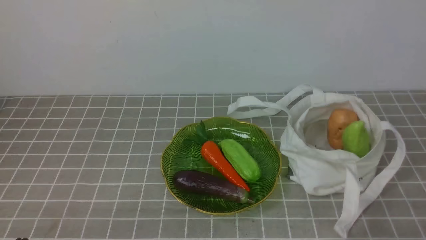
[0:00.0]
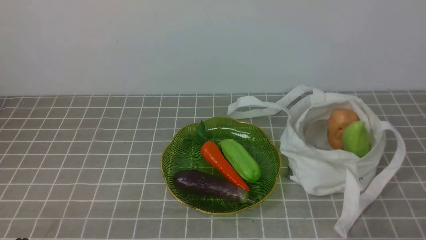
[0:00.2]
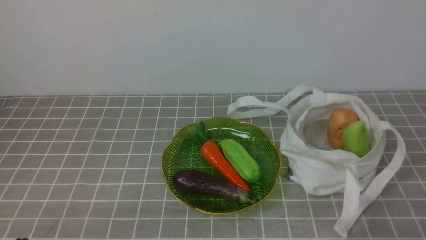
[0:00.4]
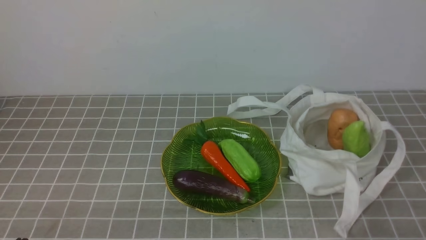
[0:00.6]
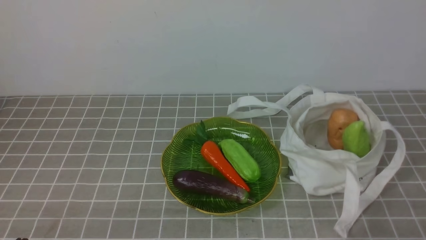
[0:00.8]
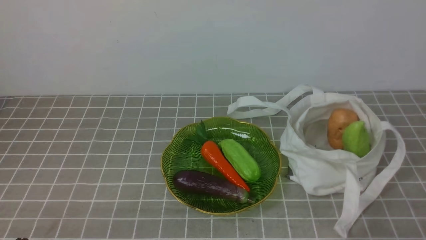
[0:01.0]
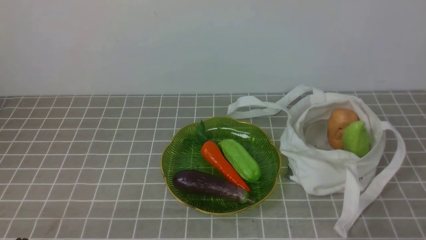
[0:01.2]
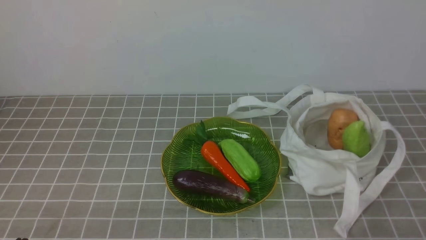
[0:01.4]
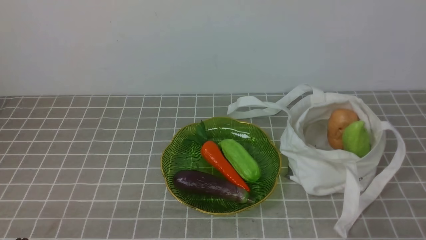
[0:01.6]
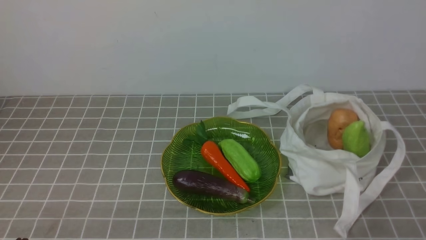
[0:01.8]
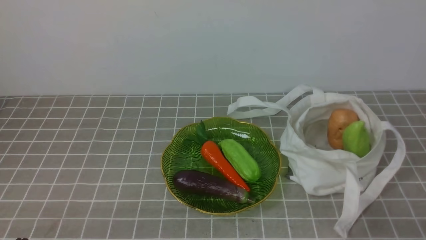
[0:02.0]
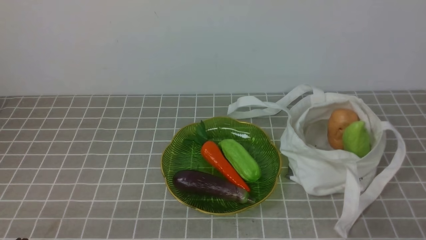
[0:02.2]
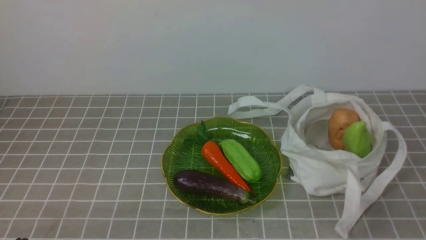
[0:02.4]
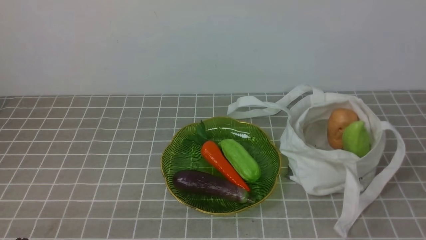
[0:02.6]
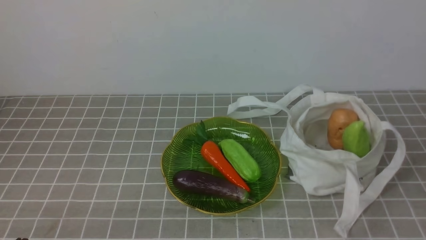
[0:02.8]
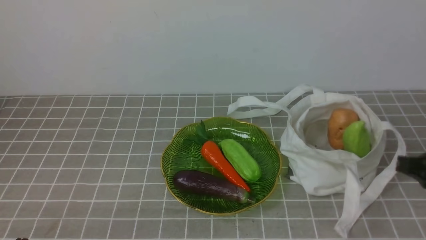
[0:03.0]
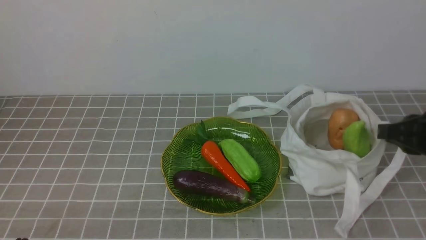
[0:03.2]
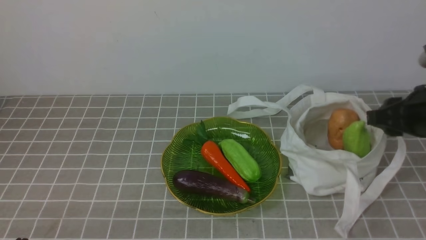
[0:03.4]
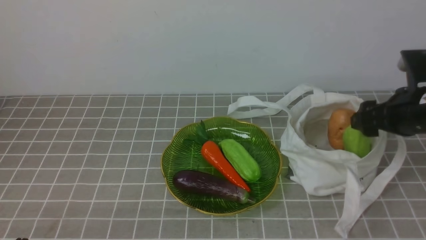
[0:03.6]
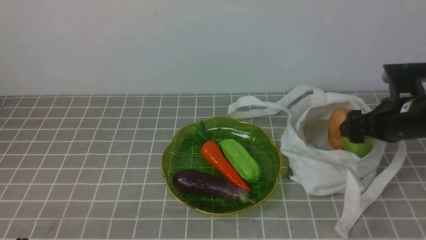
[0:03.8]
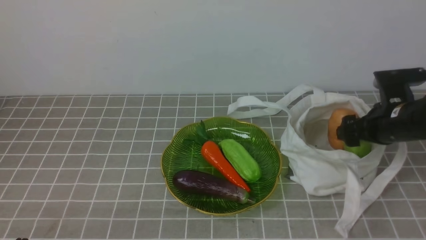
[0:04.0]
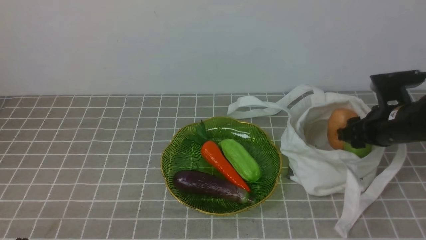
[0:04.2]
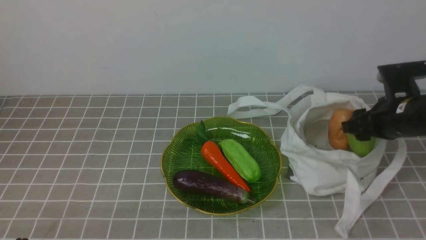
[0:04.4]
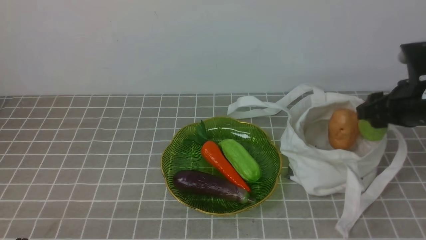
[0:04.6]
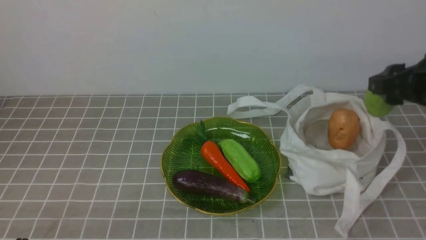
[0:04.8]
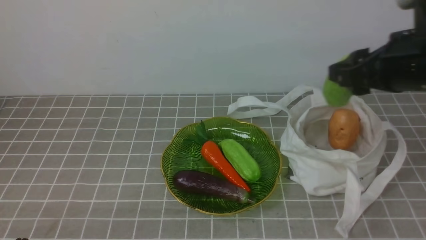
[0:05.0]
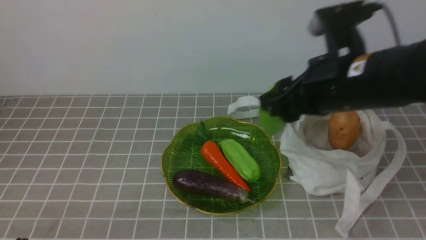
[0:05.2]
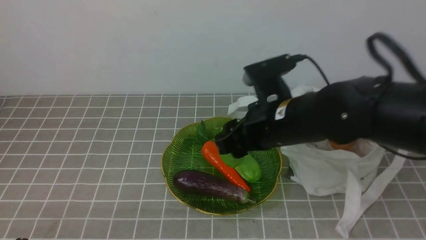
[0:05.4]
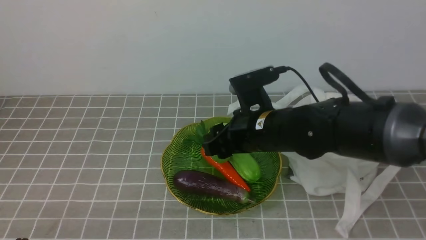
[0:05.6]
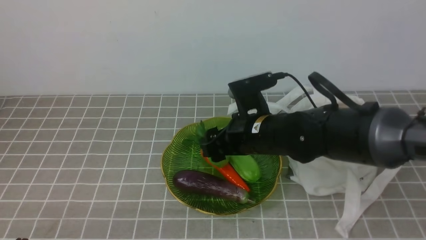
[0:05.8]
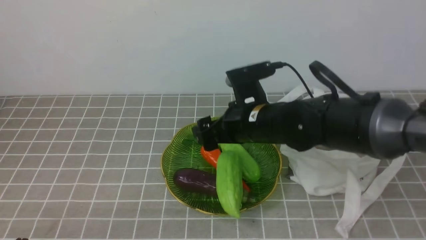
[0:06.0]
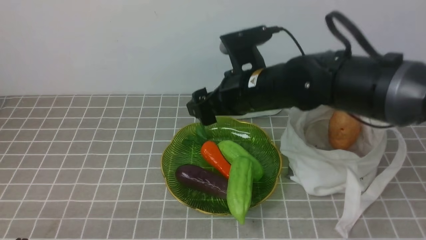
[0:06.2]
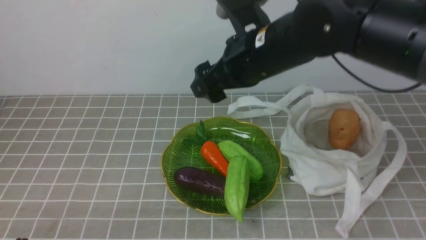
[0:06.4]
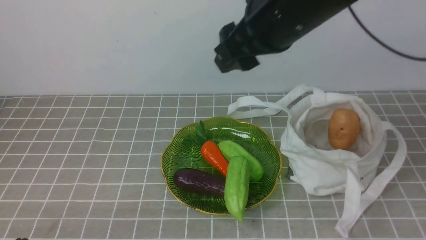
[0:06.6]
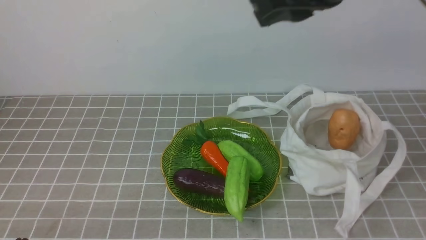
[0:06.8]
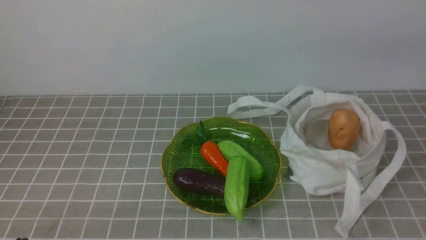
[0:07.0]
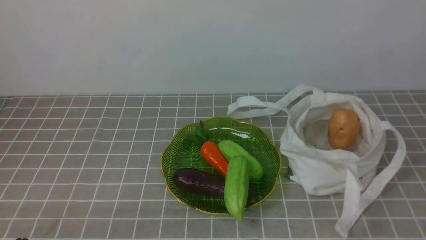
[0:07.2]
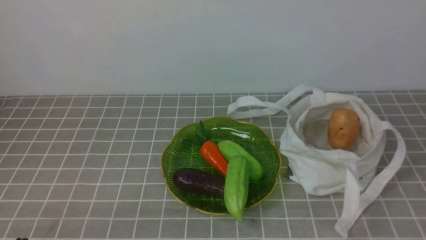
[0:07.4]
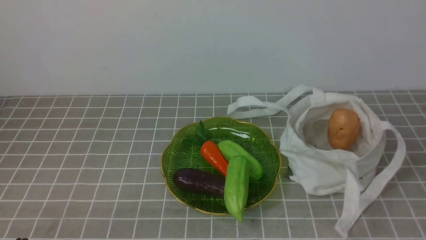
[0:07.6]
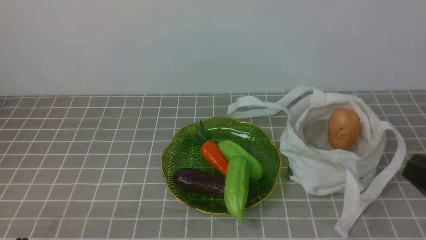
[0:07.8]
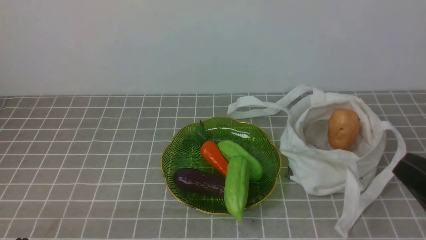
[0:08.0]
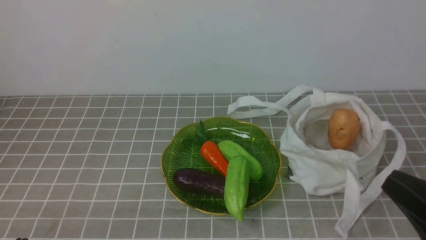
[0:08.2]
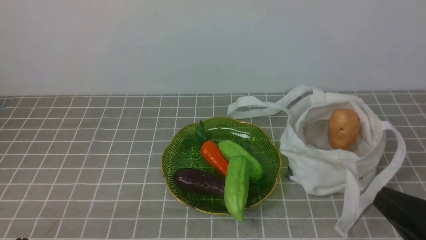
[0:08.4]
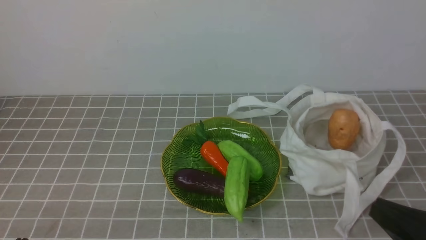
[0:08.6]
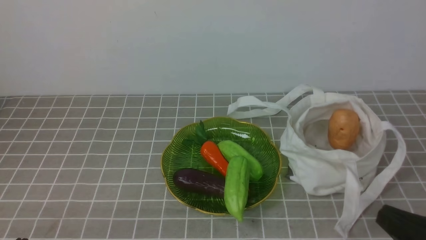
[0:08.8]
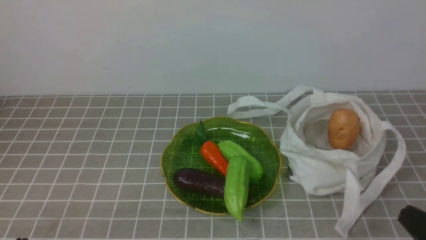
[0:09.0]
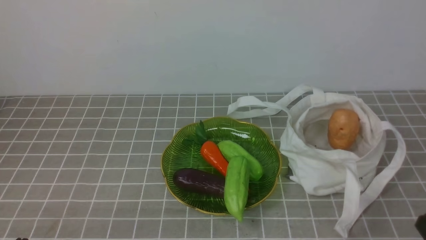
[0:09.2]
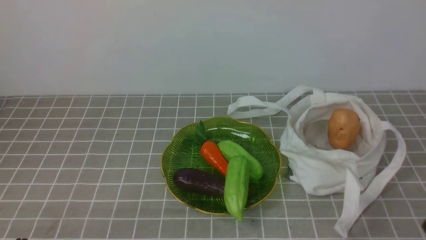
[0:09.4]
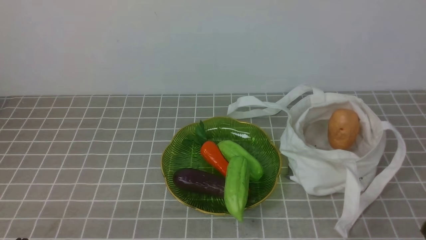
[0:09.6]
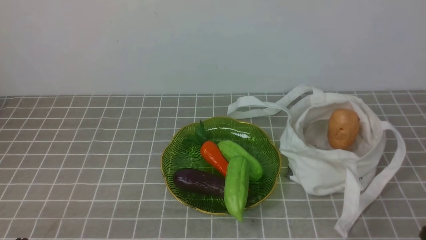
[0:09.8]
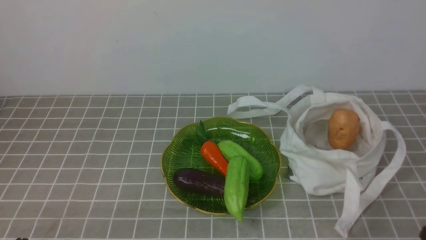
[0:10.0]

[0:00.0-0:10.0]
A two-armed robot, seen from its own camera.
Task of the whole recording: take vegetables from bag on grey coffee tablecloth place on plate.
Step, 0:00.0 to 0:04.0: Grasp the bitter melon with right gripper.
Step, 0:04.4 to 0:06.4: Place the bitter melon on the plate with right gripper.
0:00.0 to 0:01.4: Both grippers stay put.
0:02.8 to 0:04.2: The right gripper shifts about 20 cm forward, and opens up.
0:04.2 to 0:05.8: The right gripper goes some 20 cm to the left.
0:05.8 to 0:07.2: The right gripper is displaced upward, backward and to the right by roughly 40 cm, and closes.
0:07.2 to 0:08.6: The right gripper is displaced downward by approximately 25 cm.
0:08.6 to 0:10.0: The right gripper is displaced downward by roughly 5 cm.

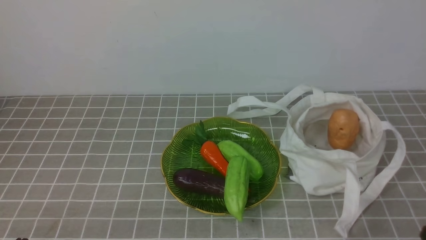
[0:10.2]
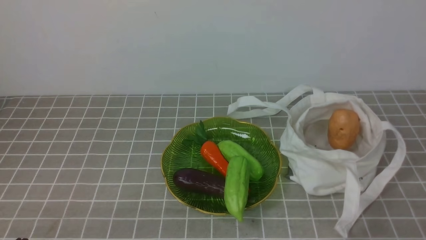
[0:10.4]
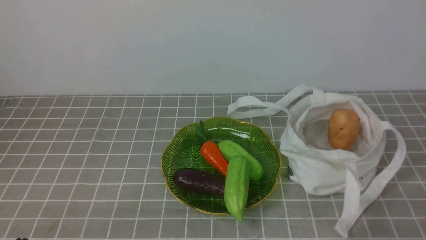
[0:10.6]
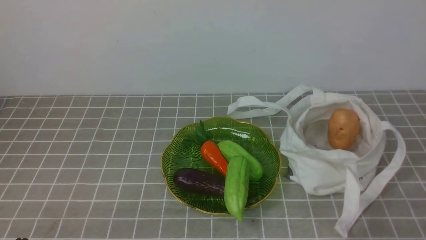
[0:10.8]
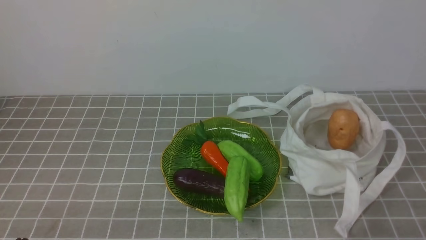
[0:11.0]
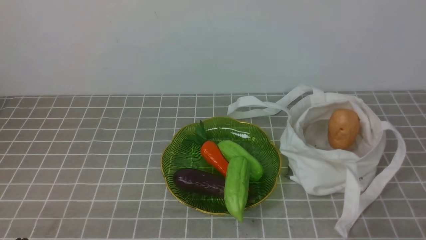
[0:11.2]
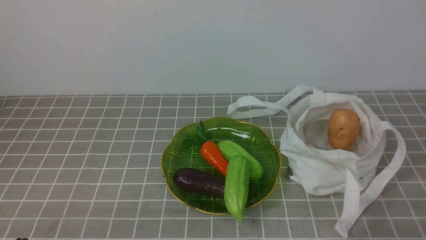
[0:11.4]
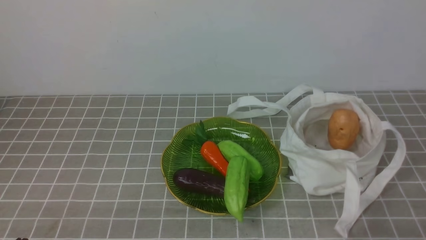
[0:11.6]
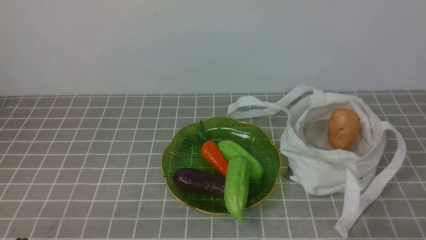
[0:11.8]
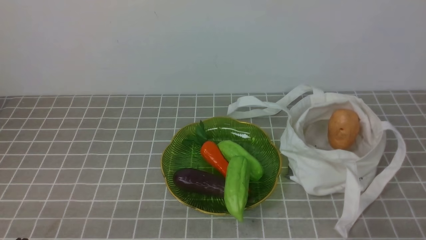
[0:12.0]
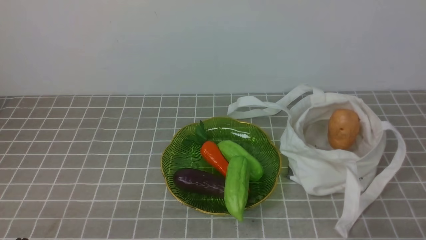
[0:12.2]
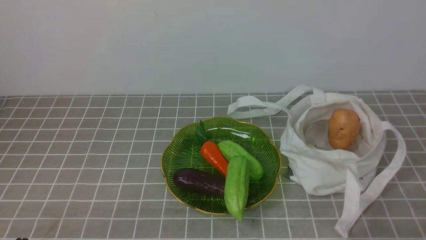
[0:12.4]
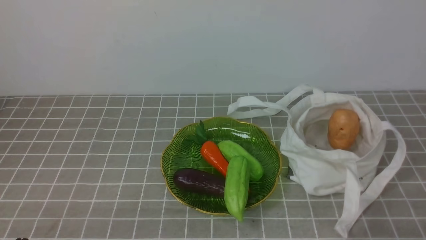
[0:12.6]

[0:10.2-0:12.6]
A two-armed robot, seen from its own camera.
Task of the whole recording: take vegetables from bag on grey coffee tablecloth place on plate.
0:11.4 to 0:12.6: Both grippers stay about where they are.
